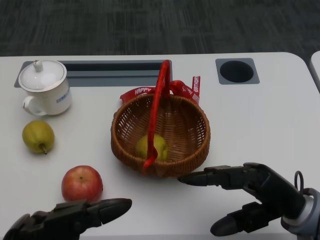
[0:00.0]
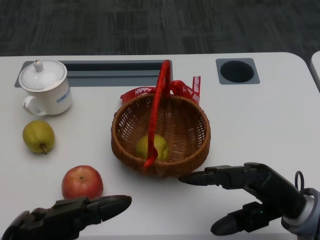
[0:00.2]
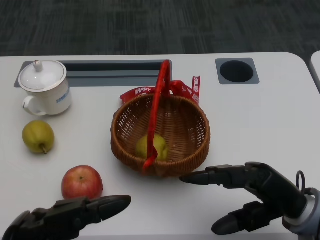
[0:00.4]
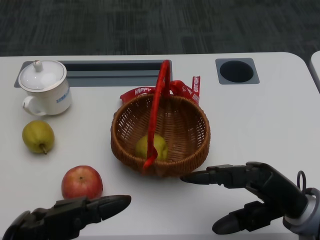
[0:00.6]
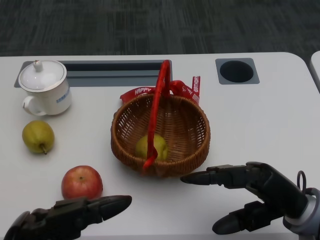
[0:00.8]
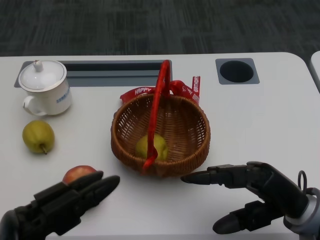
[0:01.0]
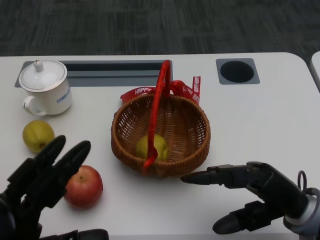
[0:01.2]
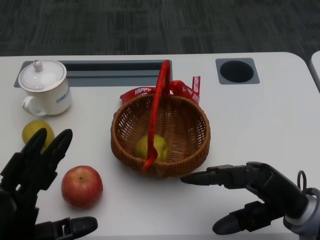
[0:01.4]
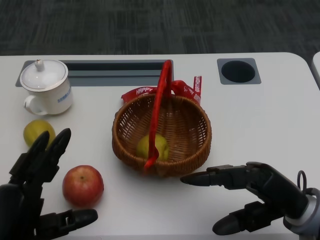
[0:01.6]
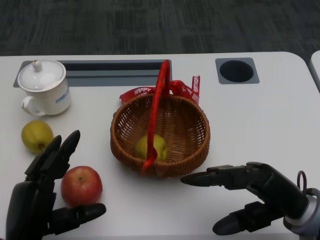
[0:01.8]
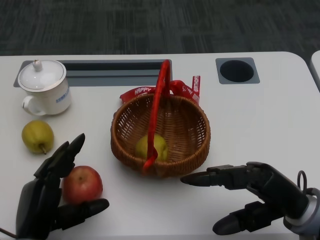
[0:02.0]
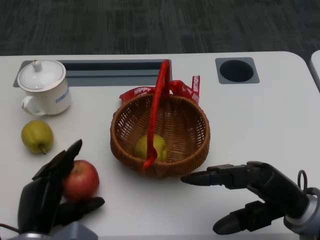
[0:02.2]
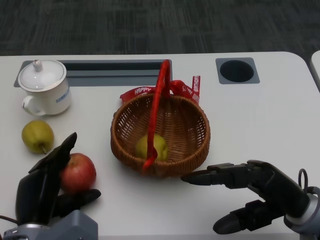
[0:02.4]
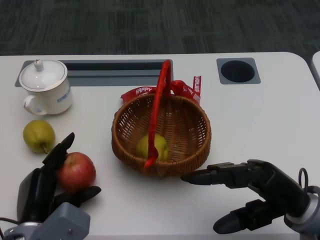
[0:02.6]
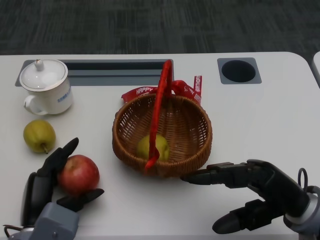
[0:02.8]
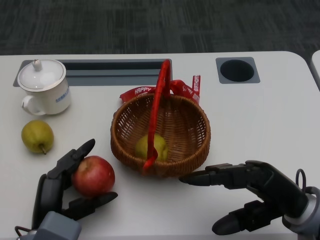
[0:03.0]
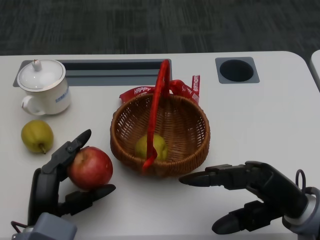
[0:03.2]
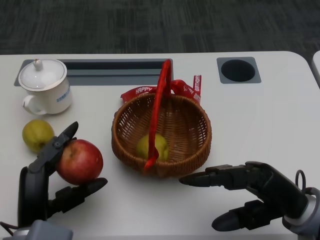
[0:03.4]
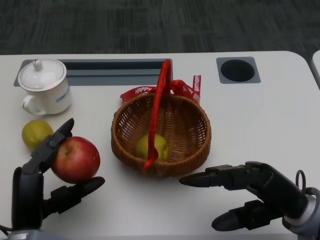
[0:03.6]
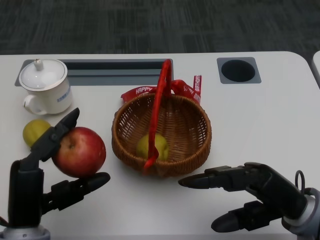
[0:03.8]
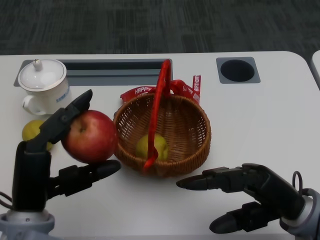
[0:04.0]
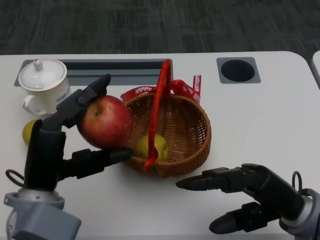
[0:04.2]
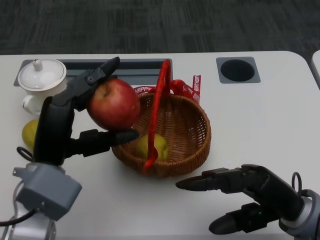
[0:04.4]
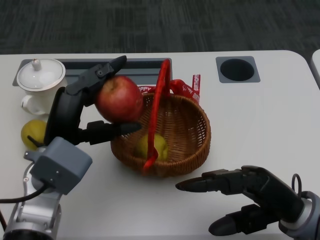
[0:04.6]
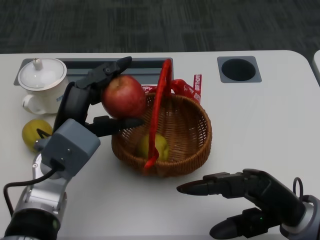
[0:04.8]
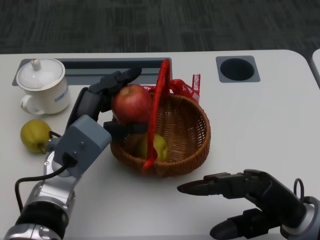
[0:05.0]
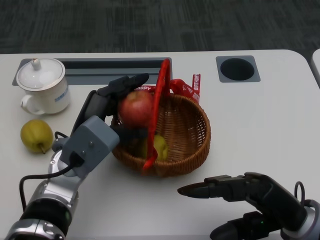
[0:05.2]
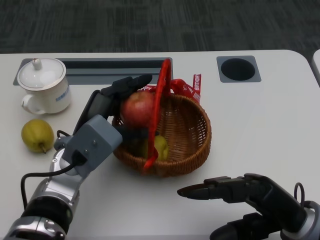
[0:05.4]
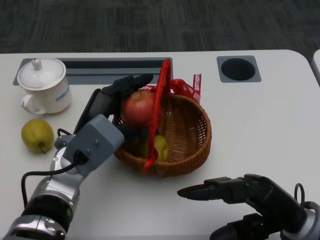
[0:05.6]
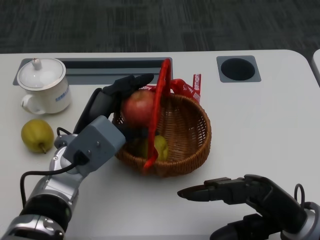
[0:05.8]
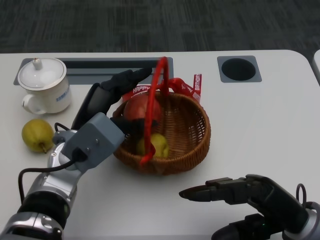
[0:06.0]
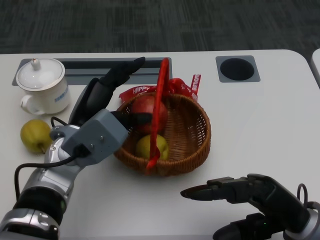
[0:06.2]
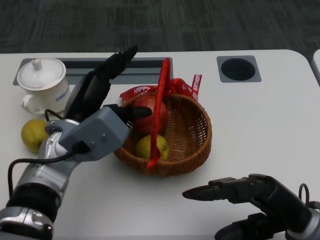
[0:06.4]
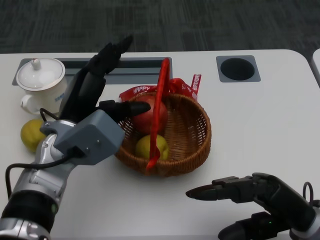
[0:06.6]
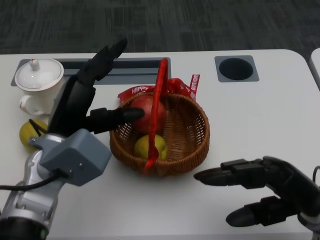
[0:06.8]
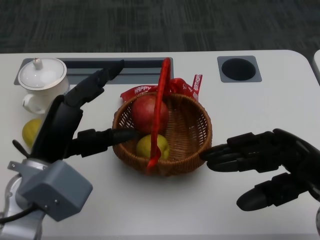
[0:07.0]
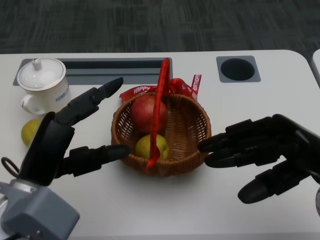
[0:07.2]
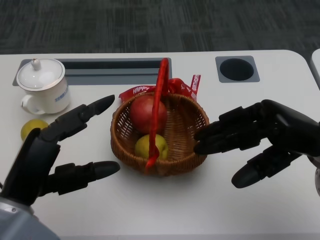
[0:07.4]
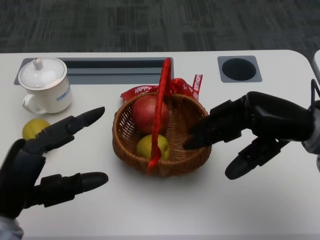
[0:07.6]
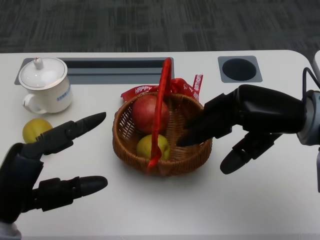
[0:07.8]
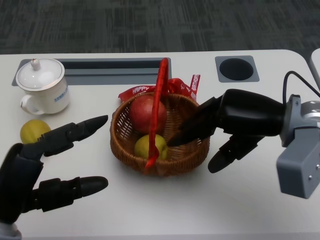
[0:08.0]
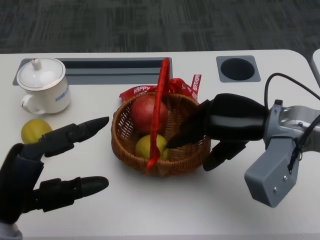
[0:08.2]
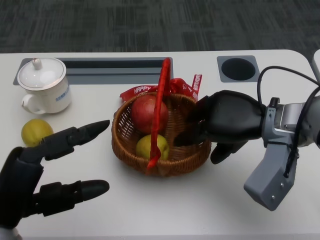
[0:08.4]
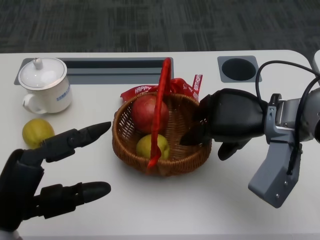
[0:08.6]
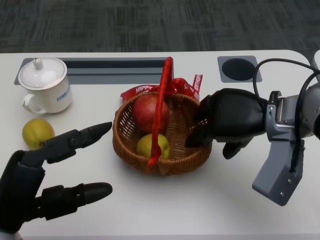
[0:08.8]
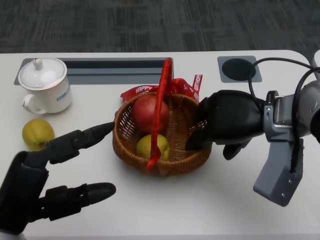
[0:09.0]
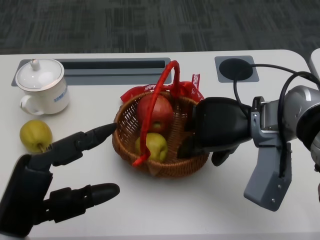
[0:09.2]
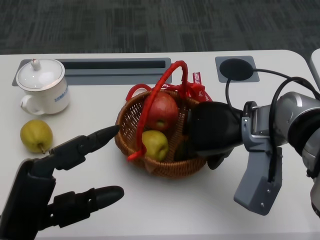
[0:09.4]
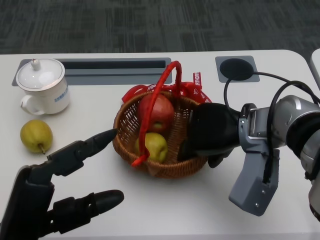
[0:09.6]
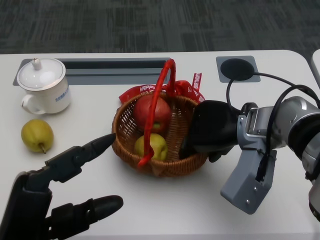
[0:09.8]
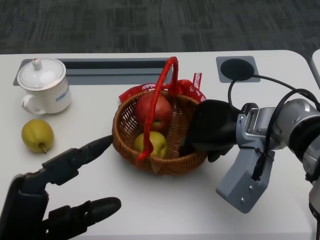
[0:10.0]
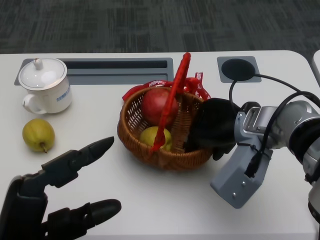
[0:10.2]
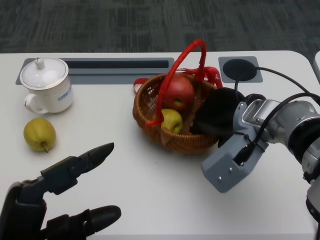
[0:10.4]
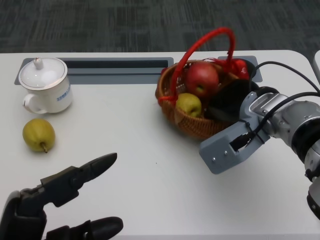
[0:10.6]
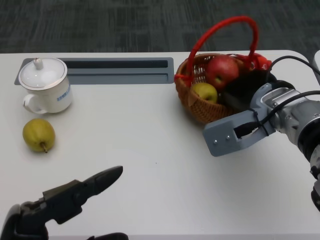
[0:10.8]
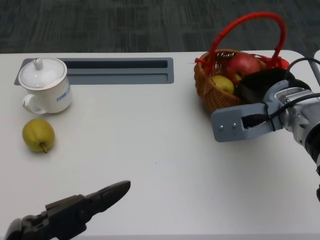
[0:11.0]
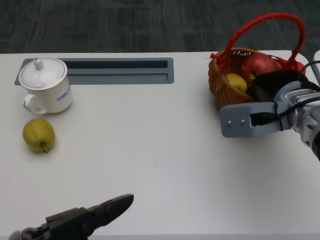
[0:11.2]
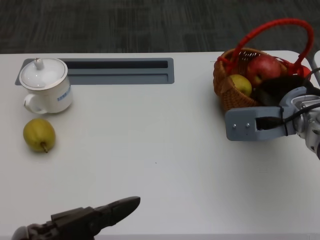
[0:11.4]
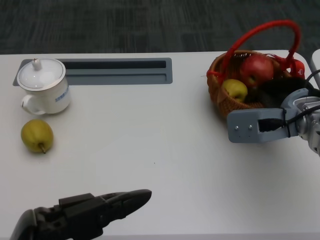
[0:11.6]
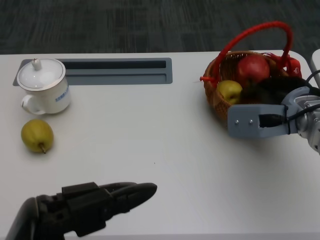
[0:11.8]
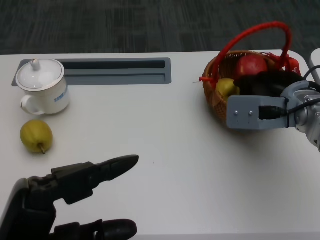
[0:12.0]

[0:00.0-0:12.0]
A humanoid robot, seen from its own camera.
Step, 0:00.8 to 0:02.2: Grasp the apple with the left gripper.
Step, 0:02.6 to 0:05.0: Place the apple into the basket with the left gripper.
Step, 0:05.2 to 0:07.6: Grasp the basket with the right gripper.
Step, 0:07.8 to 0:09.8: Move the basket to the front of the table with the right gripper.
0:01.6 to 0:03.0: The left hand goes roughly 10 cm downward and forward.
0:03.0 to 0:04.4: The left hand heads upward, covering some 10 cm.
0:04.4 to 0:06.0: The left hand heads forward, covering roughly 5 cm.
0:06.0 to 0:07.6: The right hand is displaced upward and forward by about 15 cm, while the left hand goes some 15 cm backward and to the left.
0:07.6 to 0:09.0: The right hand heads to the left, covering about 5 cm.
0:10.4 to 0:12.0: The right hand heads to the right, covering some 5 cm.

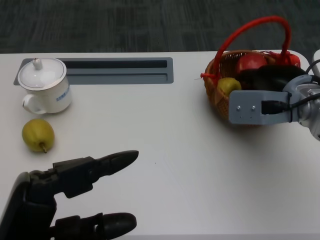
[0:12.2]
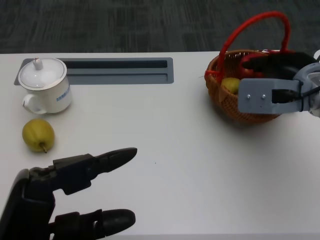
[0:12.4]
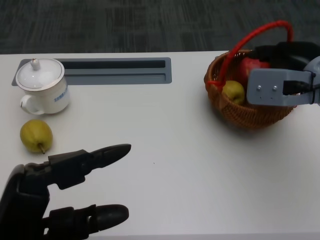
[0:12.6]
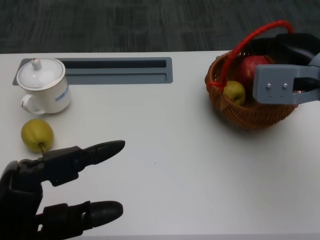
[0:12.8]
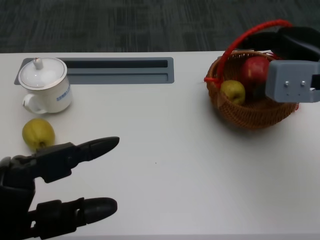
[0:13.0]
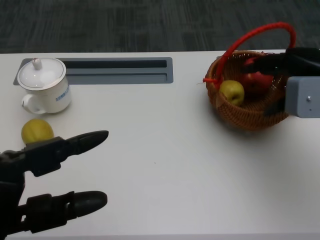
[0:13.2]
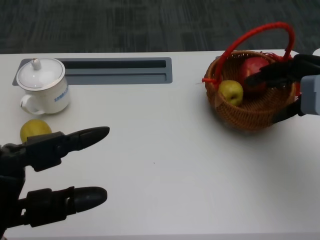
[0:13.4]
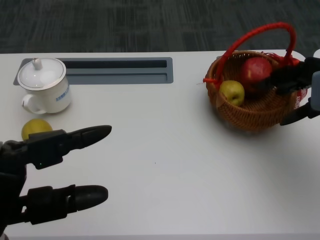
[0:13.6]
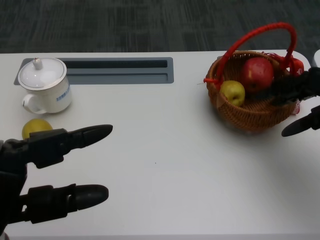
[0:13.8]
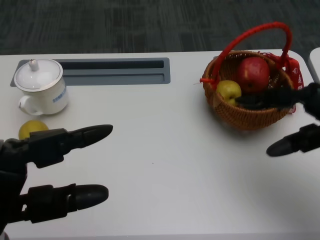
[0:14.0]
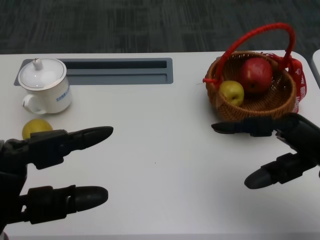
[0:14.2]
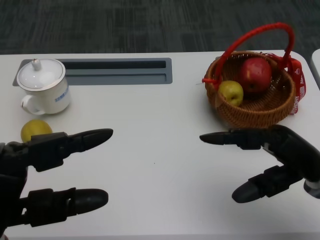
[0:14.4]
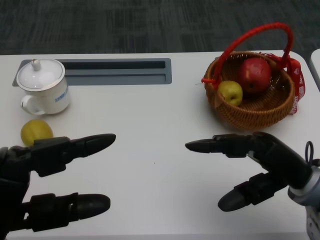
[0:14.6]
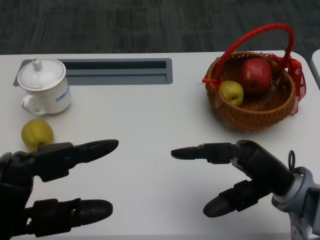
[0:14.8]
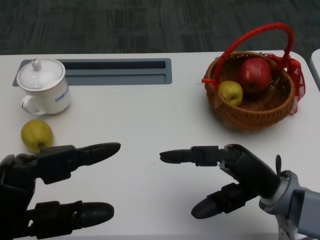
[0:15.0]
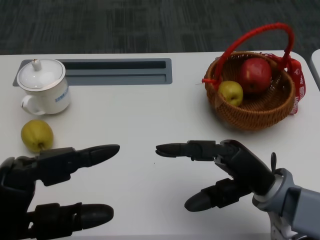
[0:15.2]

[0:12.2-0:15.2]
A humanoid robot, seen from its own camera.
0:12.2 to 0:13.8: The right hand moves to the right, approximately 10 cm.
0:13.8 to 0:15.2: The right hand travels to the left, downward and backward by some 20 cm.

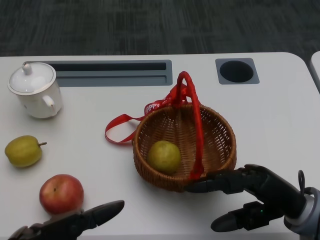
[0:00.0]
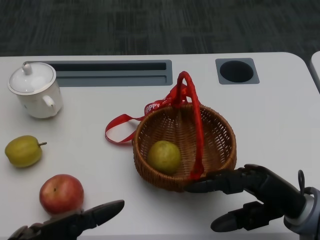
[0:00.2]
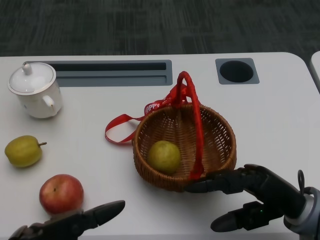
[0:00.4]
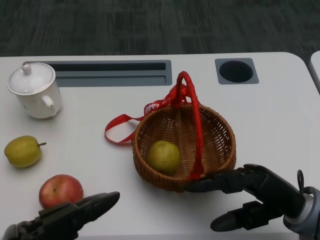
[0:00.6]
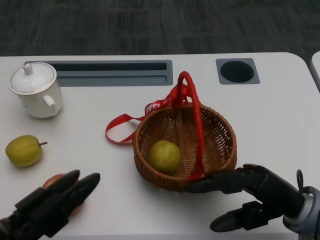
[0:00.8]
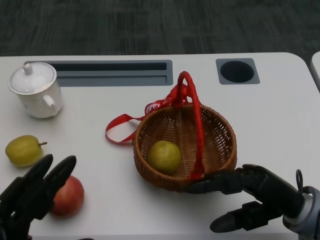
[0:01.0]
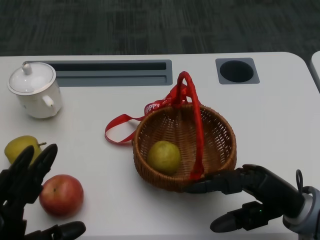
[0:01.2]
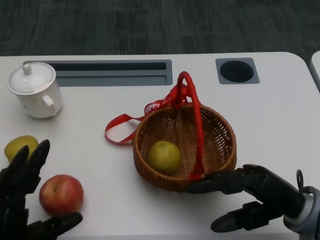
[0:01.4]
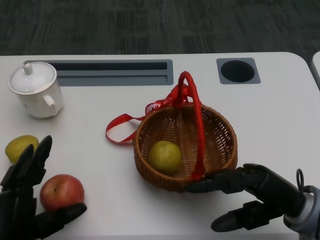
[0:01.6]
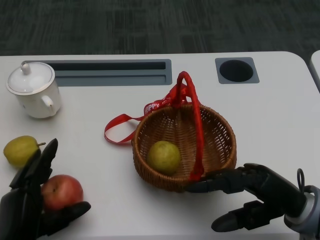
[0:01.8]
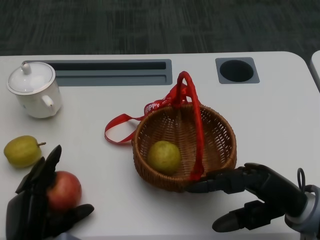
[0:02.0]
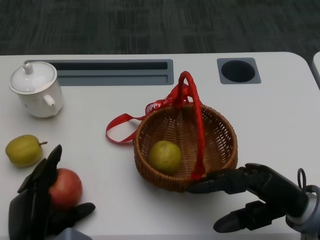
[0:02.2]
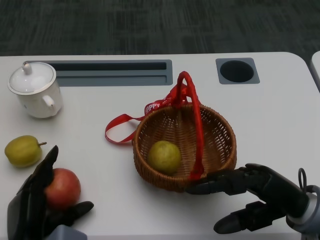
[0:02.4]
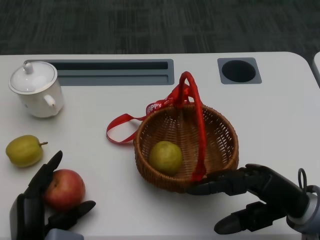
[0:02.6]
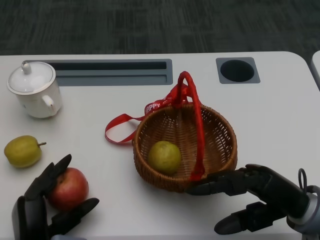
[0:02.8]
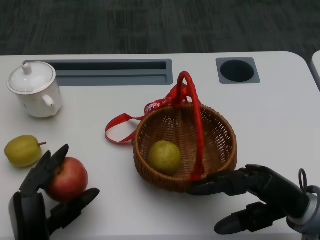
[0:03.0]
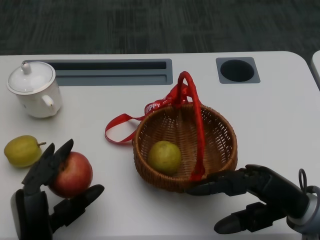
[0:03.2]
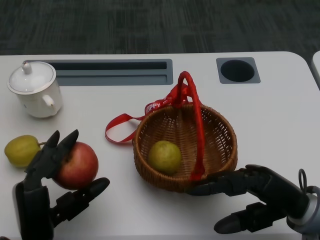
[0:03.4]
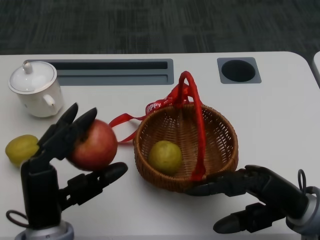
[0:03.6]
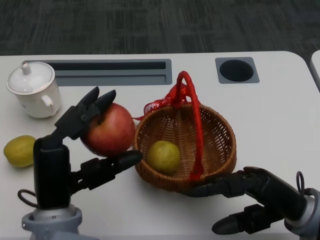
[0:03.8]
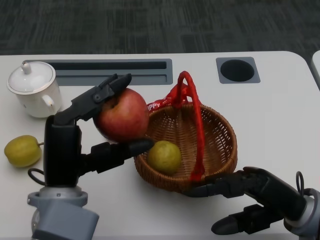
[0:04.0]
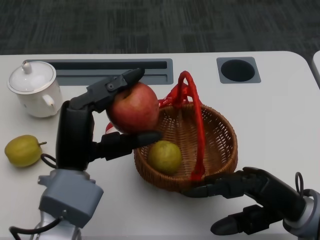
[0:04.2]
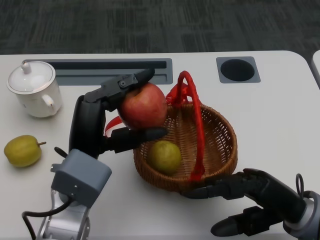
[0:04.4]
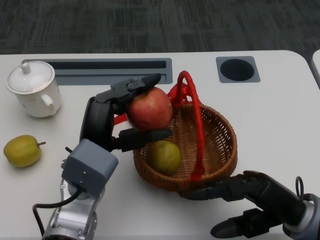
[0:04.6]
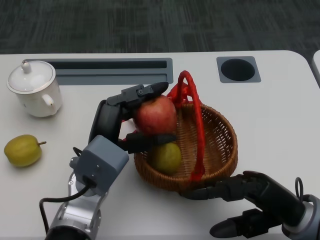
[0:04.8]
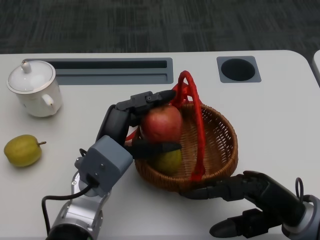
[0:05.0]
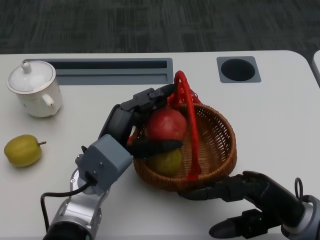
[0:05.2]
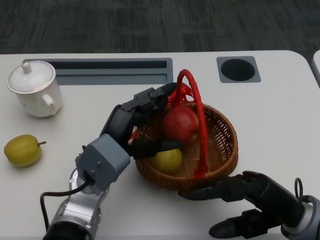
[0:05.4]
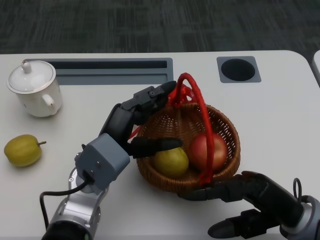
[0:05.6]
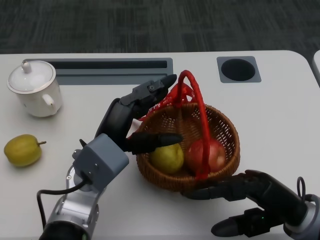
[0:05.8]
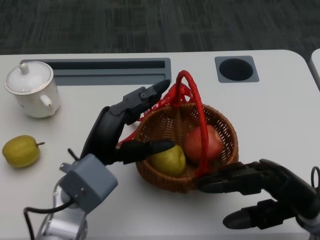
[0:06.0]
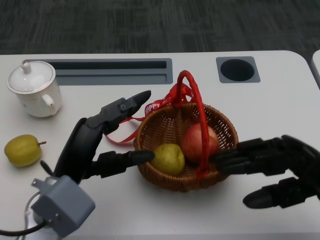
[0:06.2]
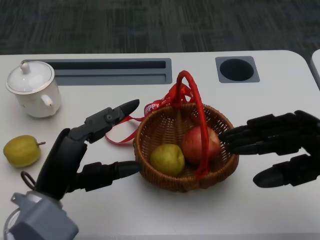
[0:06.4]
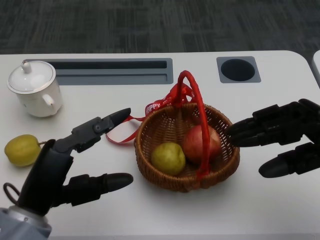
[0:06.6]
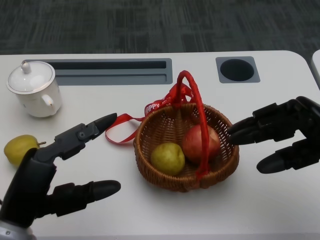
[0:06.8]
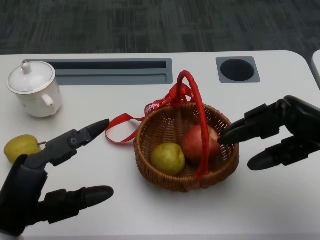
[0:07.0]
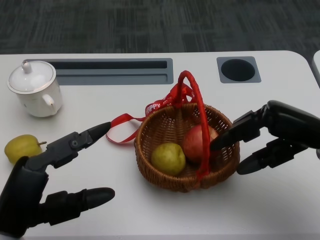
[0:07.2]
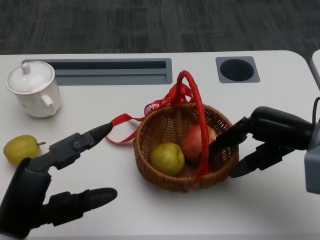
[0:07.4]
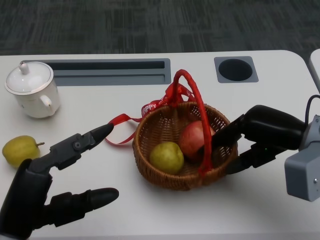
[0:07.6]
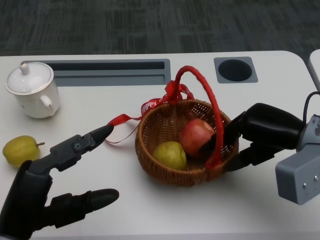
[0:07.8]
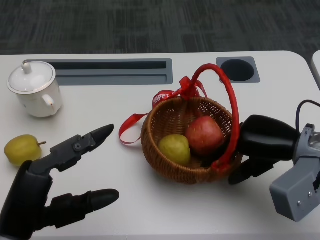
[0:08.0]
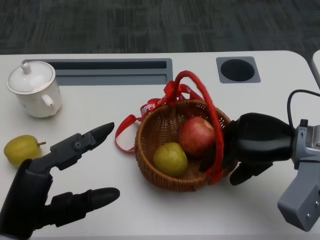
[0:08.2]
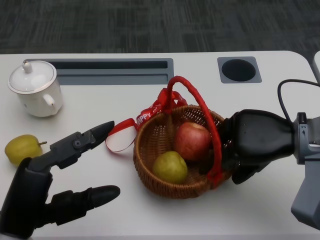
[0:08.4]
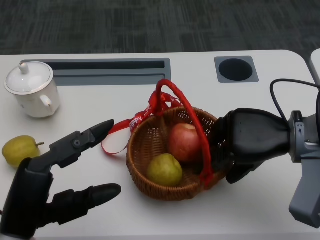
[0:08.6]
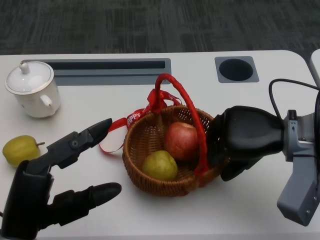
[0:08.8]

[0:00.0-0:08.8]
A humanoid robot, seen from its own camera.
Step, 0:00.4 to 0:02.2: Grasp the apple with the left gripper.
Step, 0:02.4 to 0:04.6: Place the apple into the basket with the left gripper.
Step, 0:04.8 to 0:06.6: Grasp the basket with the right gripper.
0:01.4 to 0:03.0: The left hand shifts roughly 5 cm to the right.
0:03.0 to 0:04.4: The left hand moves upward and forward, roughly 15 cm.
0:05.8 to 0:07.4: The right hand is displaced forward and upward by roughly 10 cm. The left hand goes some 15 cm backward and to the left.
